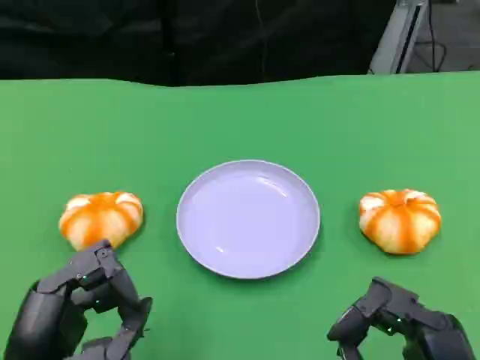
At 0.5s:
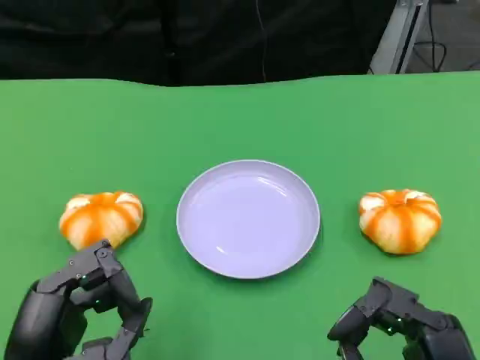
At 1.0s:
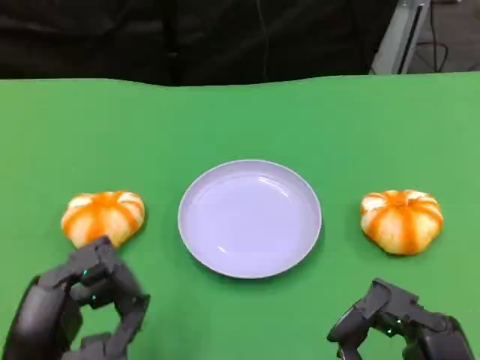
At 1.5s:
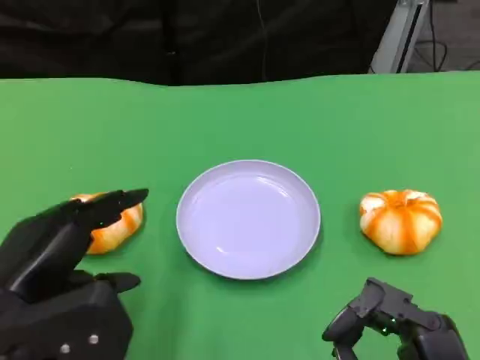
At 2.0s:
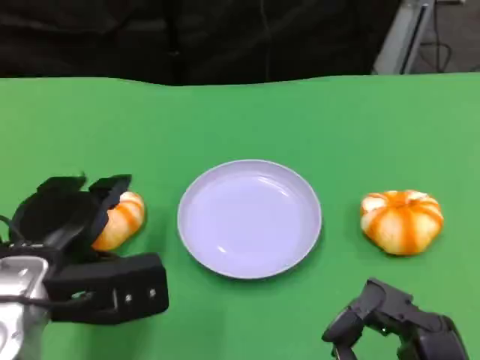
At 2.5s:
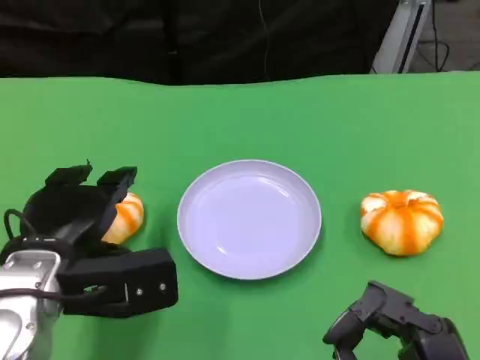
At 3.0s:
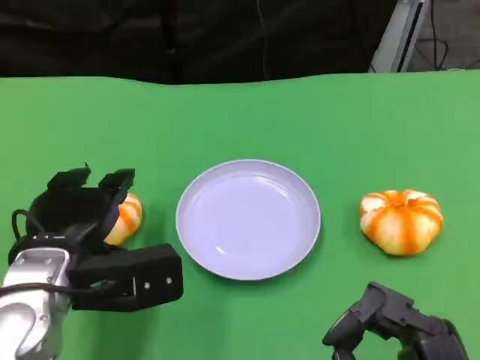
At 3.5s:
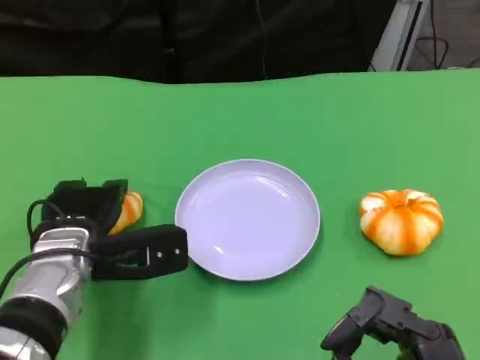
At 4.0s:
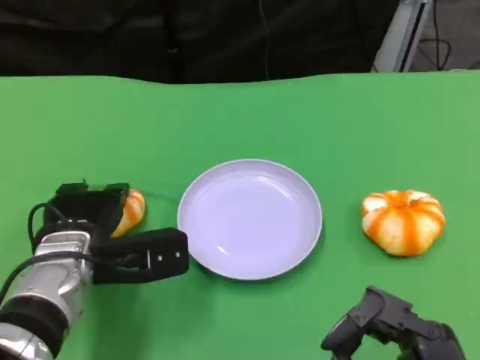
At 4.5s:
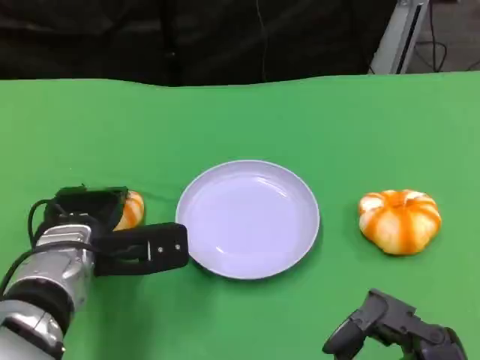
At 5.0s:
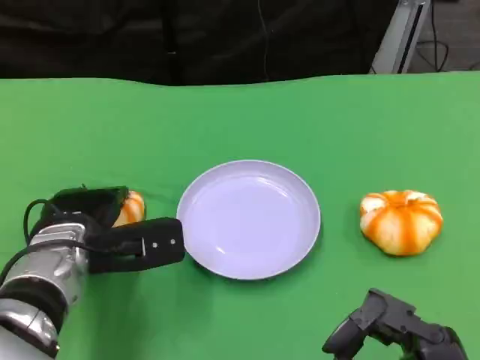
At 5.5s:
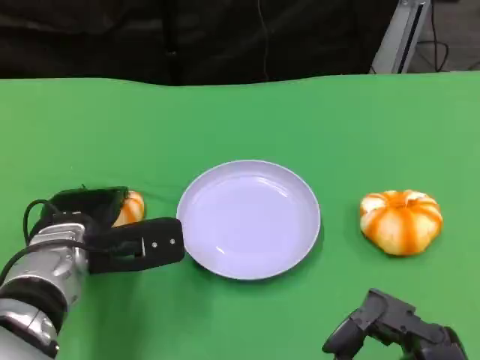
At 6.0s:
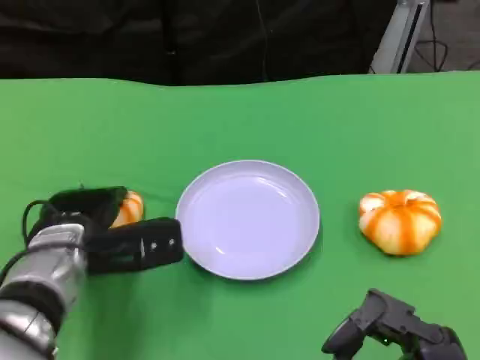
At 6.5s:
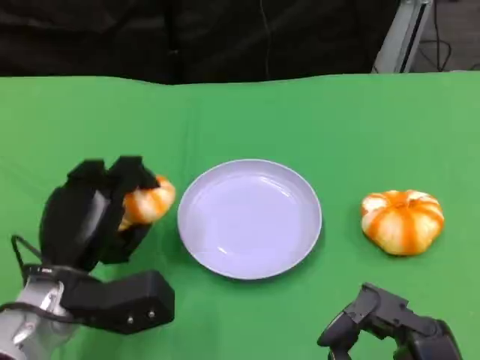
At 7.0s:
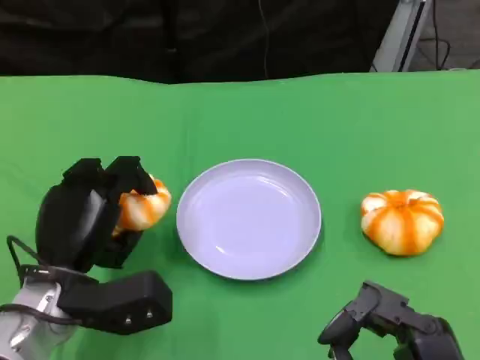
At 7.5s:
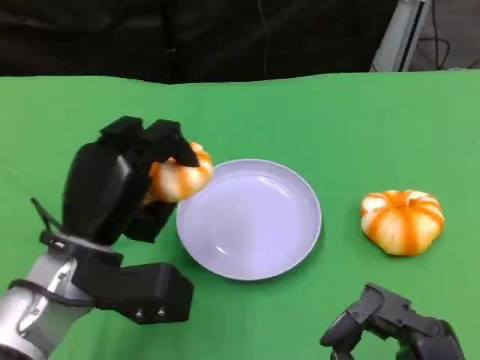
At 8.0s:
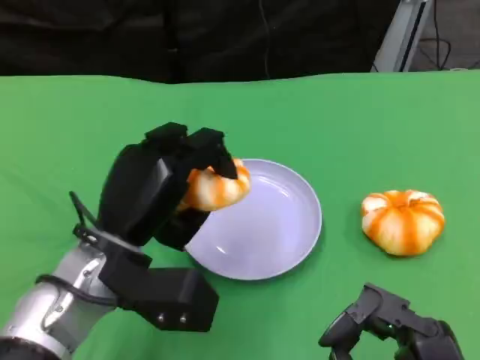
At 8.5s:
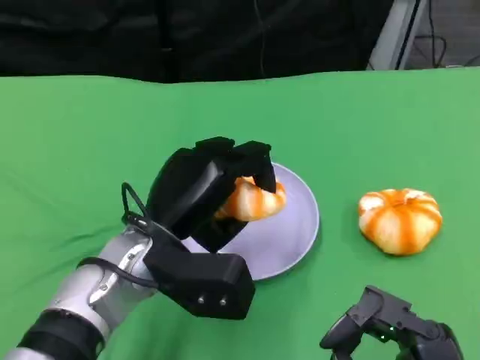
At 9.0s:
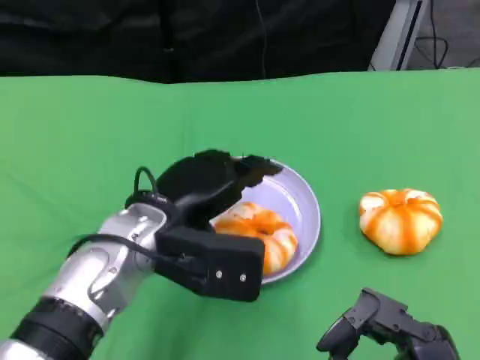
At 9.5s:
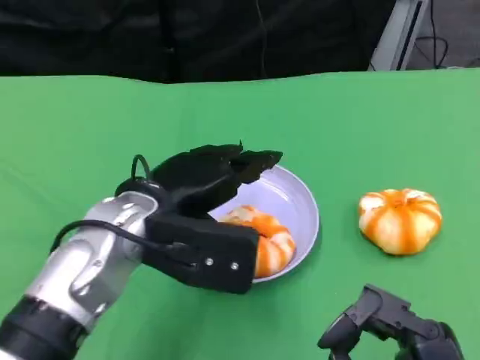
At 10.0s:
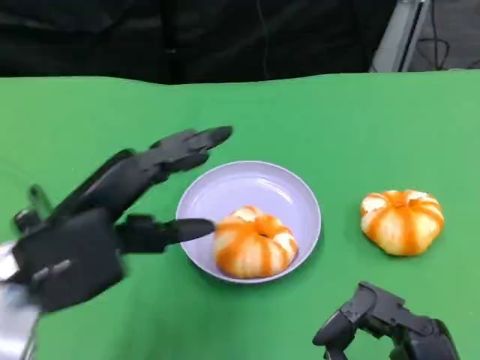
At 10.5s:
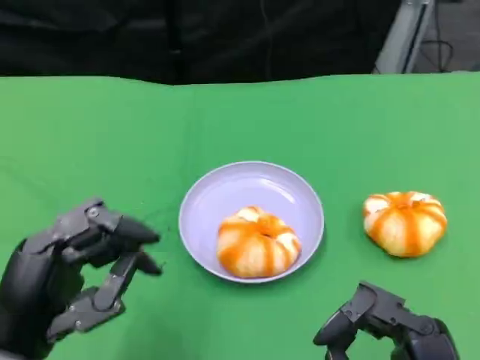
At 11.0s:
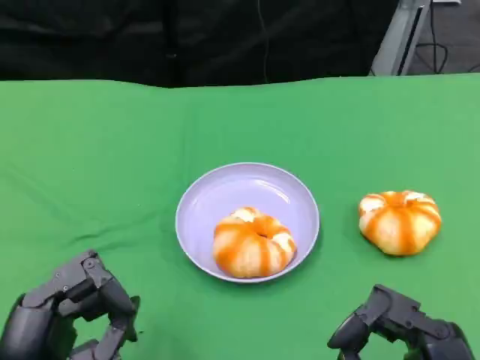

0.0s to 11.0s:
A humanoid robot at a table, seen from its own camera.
Task of the whole recording: Grasp the bread from the table and place it into the plate.
0.0s to 2.0s: The left hand travels forward by approximately 10 cm.
2.0s to 3.5s: The left hand heads forward, covering about 5 cm.
3.5s to 5.5s: The hands make only small movements.
5.5s to 7.5s: The left hand ends up about 5 cm from where it was.
7.5s to 9.0s: The left hand heads to the right, covering roughly 5 cm.
9.0s to 11.0s: The left hand shifts approximately 20 cm backward and to the left.

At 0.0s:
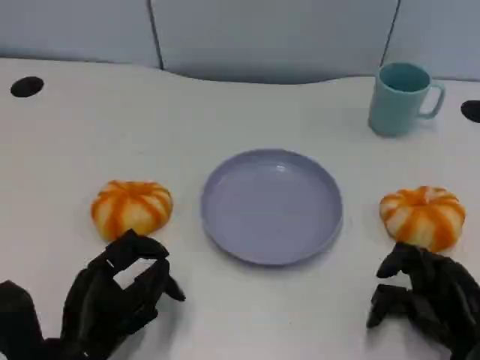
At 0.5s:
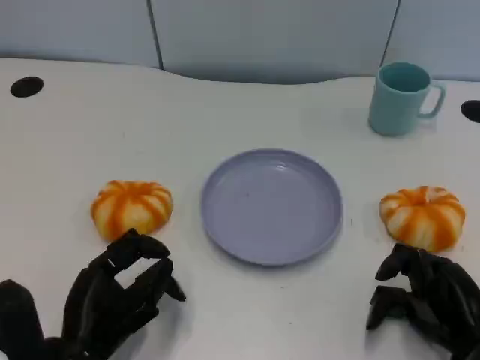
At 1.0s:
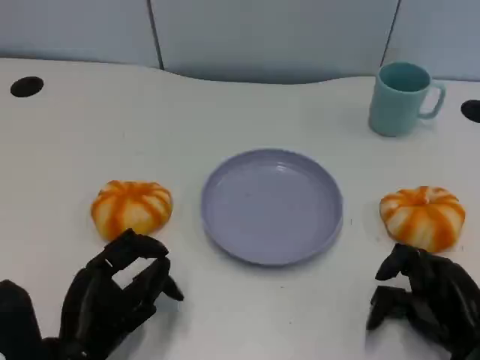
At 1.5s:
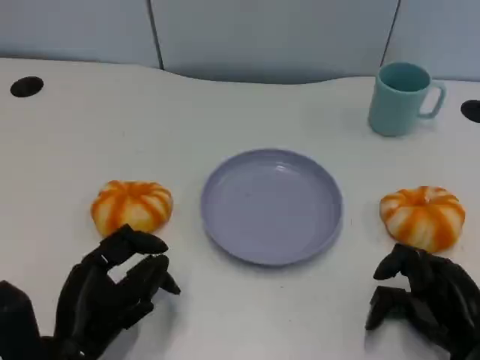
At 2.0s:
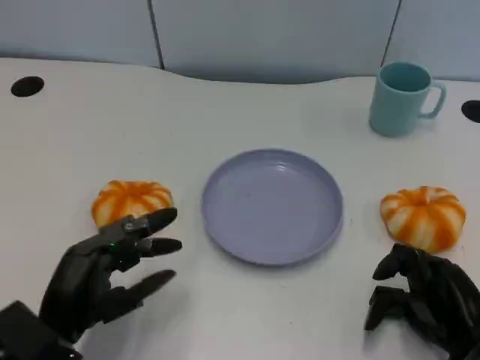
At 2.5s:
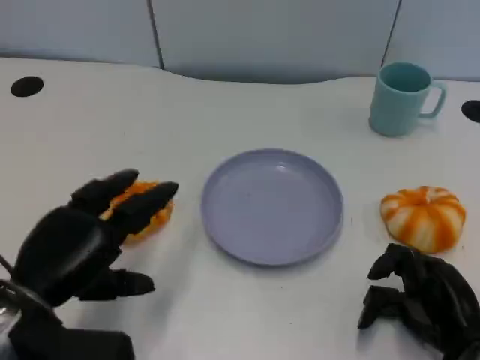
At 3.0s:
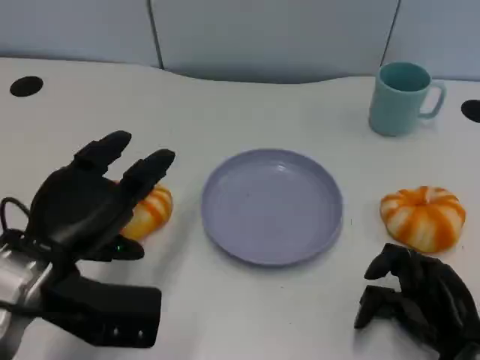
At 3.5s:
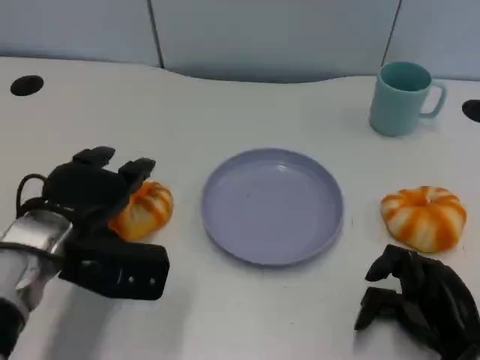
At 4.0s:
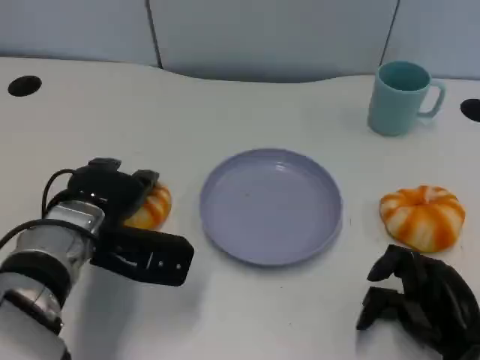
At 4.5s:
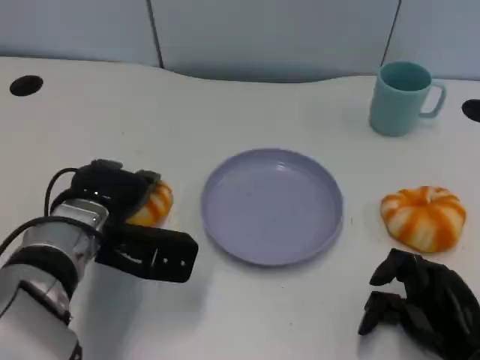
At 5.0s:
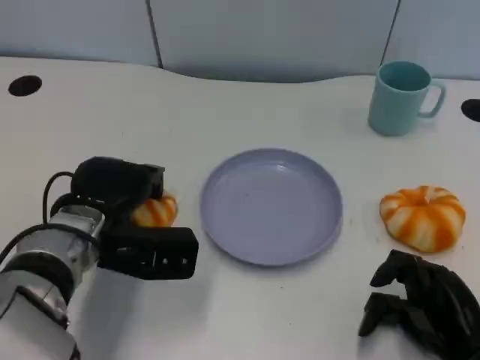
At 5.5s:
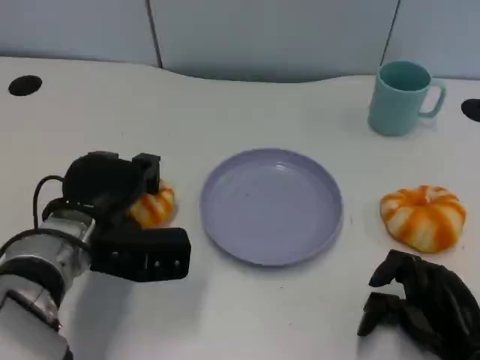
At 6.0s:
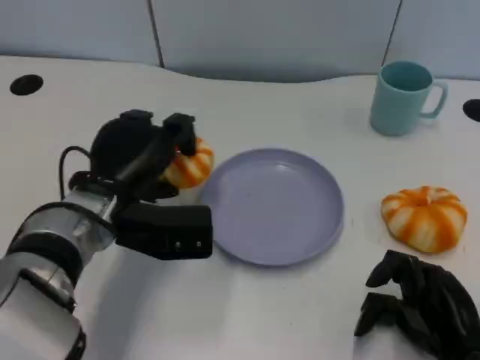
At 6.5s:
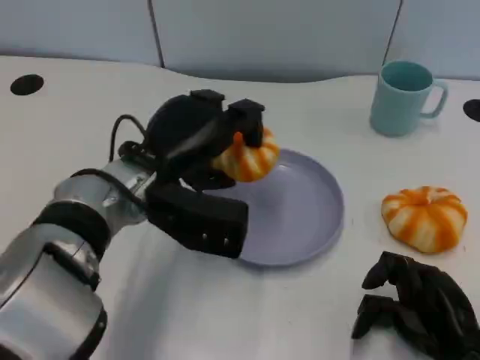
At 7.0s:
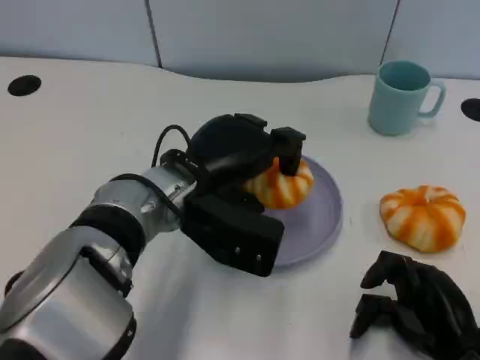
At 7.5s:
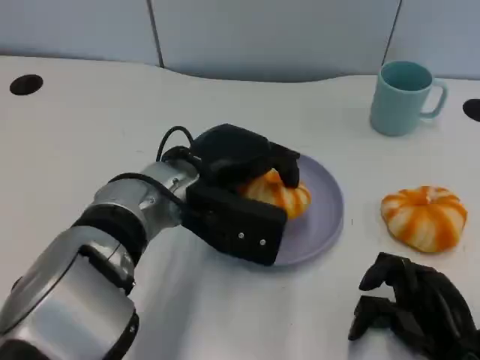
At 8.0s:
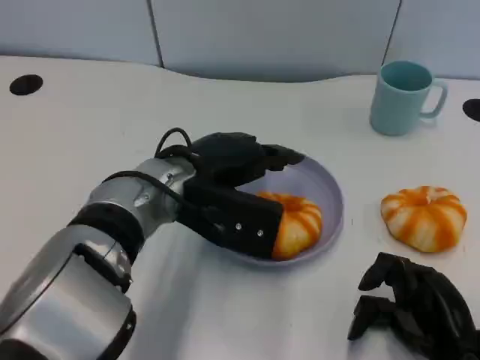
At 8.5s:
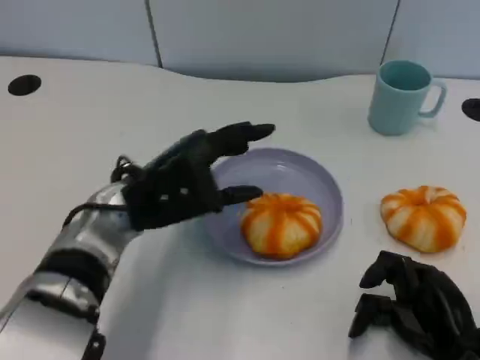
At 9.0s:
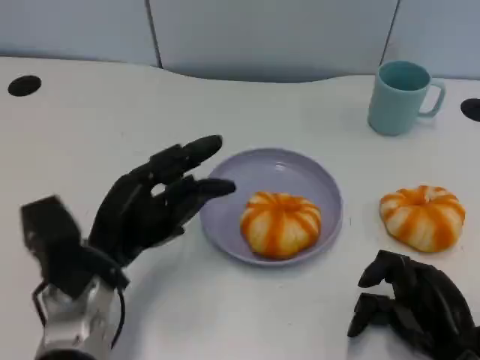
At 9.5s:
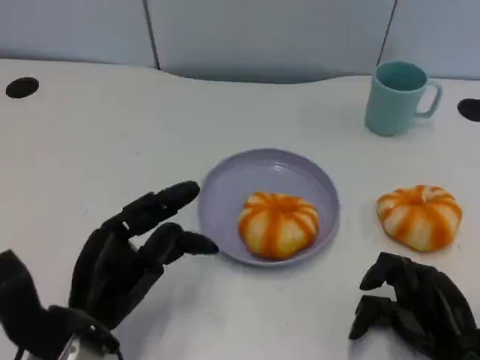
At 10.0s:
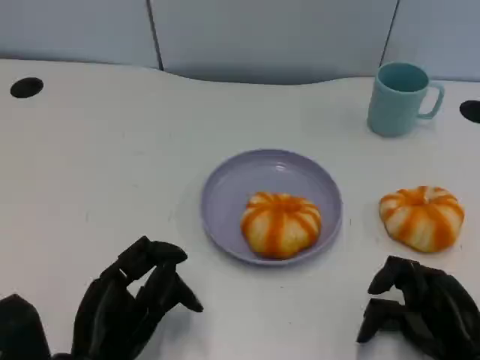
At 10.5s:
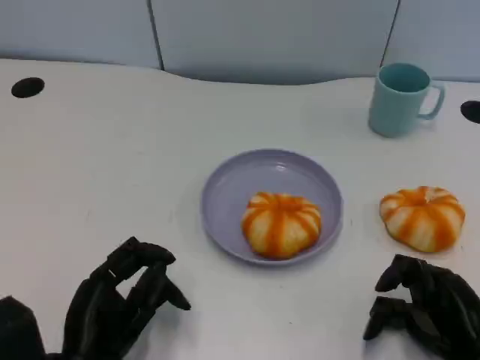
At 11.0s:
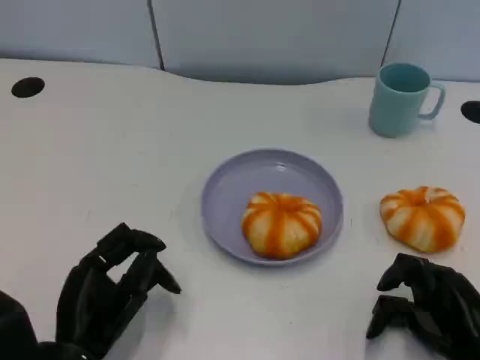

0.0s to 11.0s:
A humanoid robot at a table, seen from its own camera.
Task of the whole recording: Grasp the bread from the table and place it into the plate.
2.0s to 3.5s: The left hand heads forward and upward, covering roughly 10 cm.
3.5s to 5.5s: The hands stay close to where they were, moving slightly.
5.5s to 7.5s: The left hand shifts about 10 cm to the right and upward.
7.5s to 9.0s: The left hand moves to the left, downward and backward, some 15 cm.
9.0s to 11.0s: The left hand goes approximately 5 cm backward.

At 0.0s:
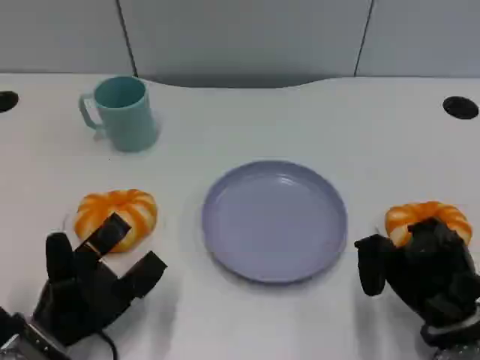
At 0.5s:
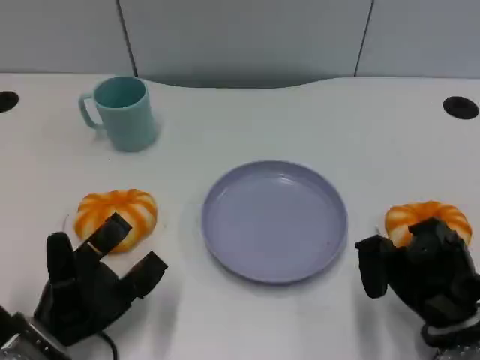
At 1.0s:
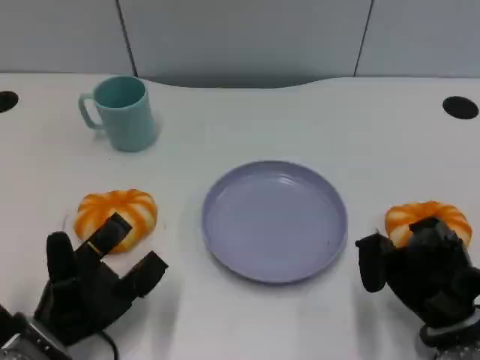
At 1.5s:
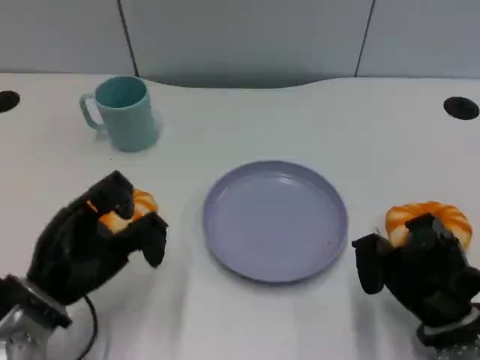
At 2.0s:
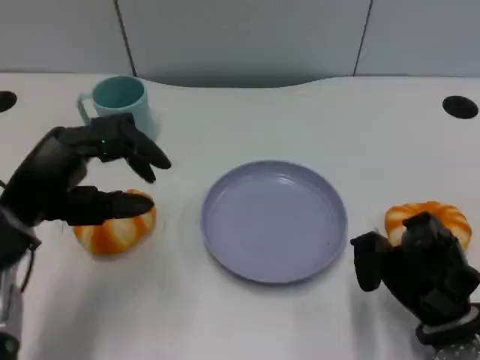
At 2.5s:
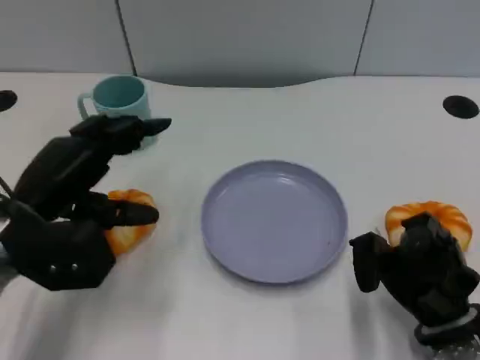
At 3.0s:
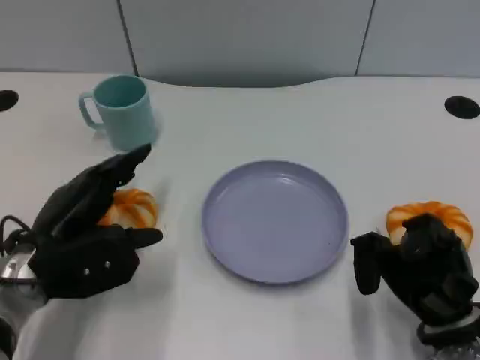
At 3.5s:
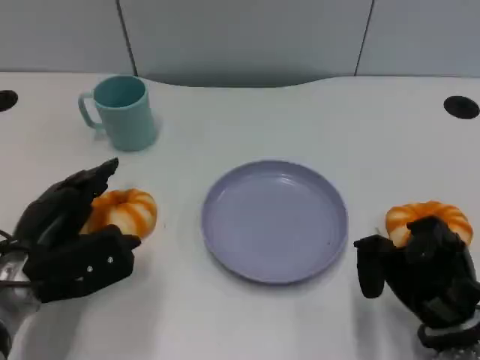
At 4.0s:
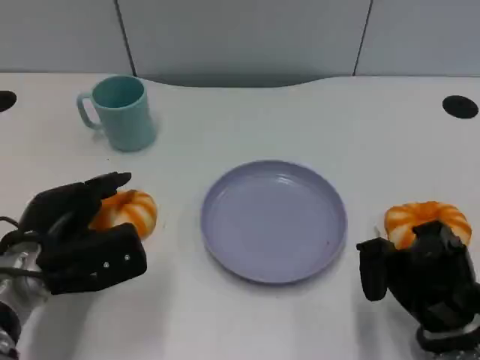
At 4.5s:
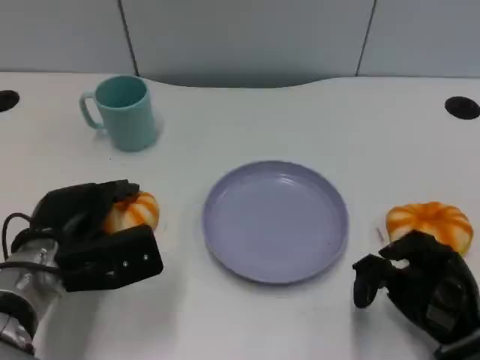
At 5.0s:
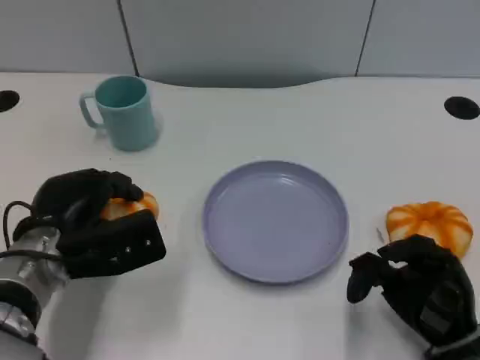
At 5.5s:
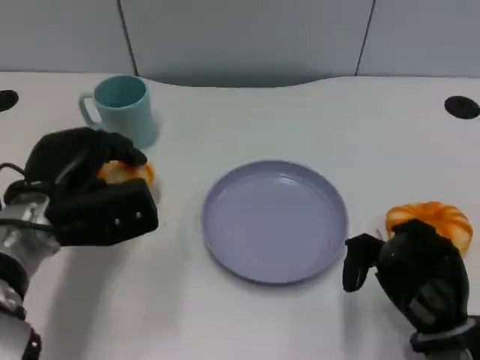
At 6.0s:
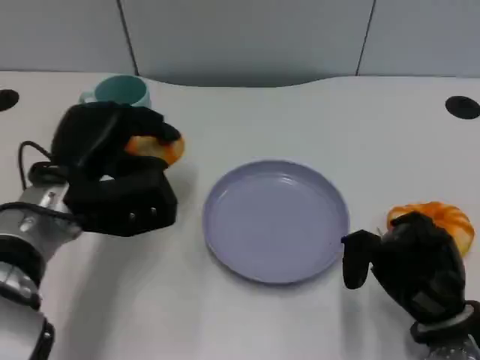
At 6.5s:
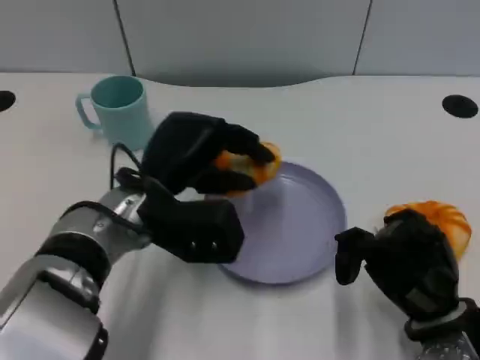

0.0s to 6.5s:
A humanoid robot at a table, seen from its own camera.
Task of the whole recording: Grasp the bread from the table and place it into the plate.
0.0s to 2.0s: The left hand is displaced upward by about 15 cm.
2.0s to 4.5s: The left hand travels downward by about 10 cm.
4.5s to 6.5s: The left hand goes roughly 10 cm to the right and upward.
